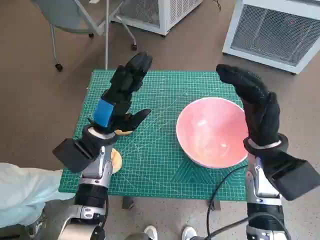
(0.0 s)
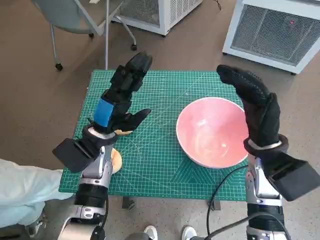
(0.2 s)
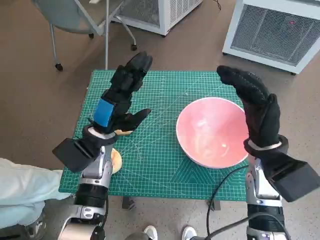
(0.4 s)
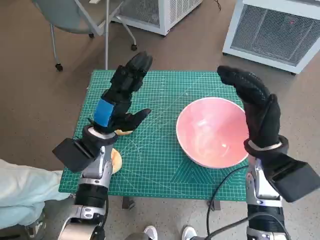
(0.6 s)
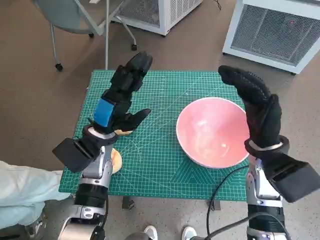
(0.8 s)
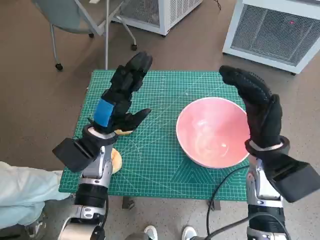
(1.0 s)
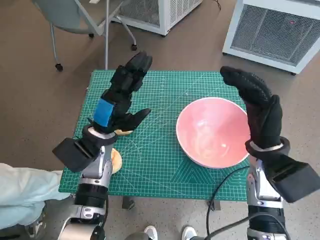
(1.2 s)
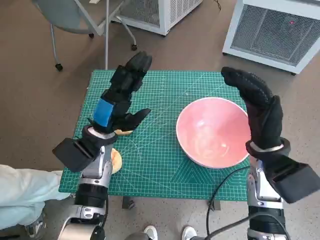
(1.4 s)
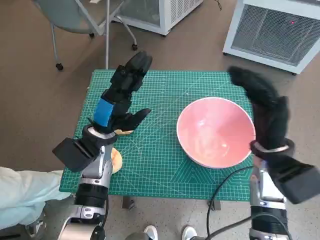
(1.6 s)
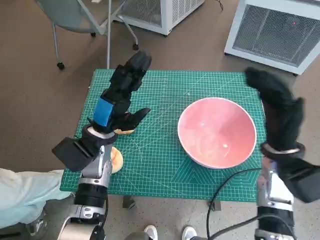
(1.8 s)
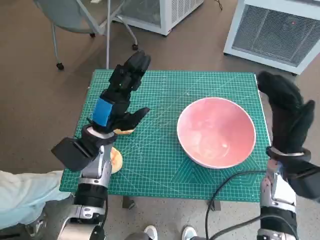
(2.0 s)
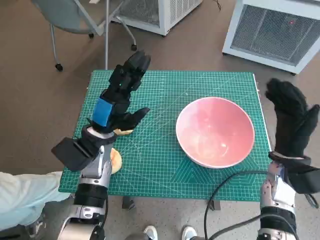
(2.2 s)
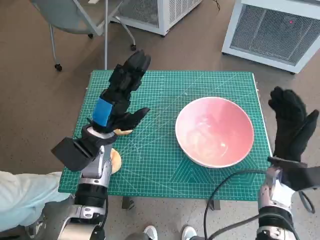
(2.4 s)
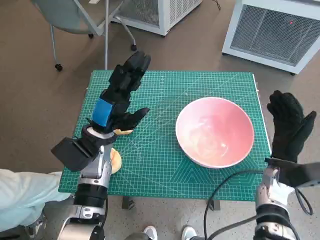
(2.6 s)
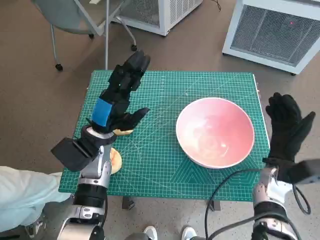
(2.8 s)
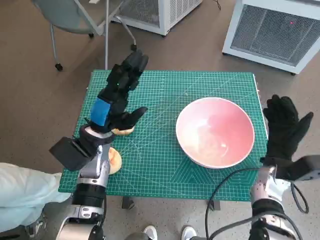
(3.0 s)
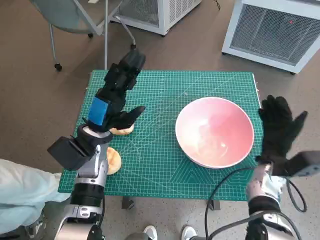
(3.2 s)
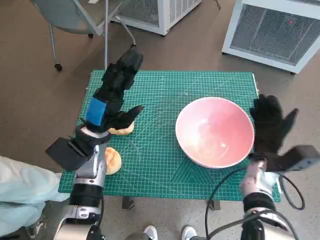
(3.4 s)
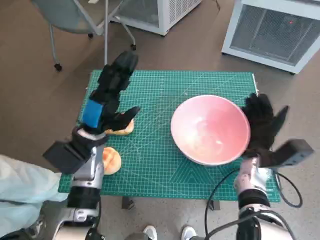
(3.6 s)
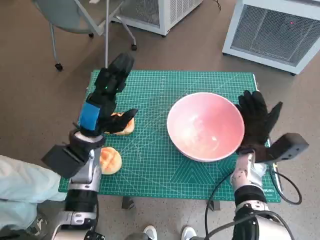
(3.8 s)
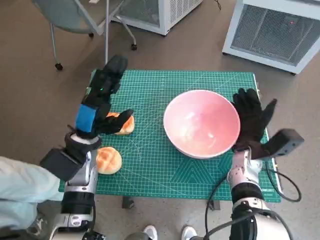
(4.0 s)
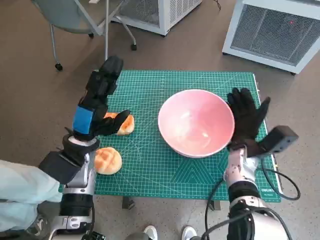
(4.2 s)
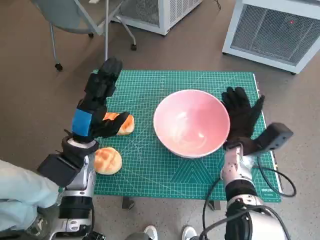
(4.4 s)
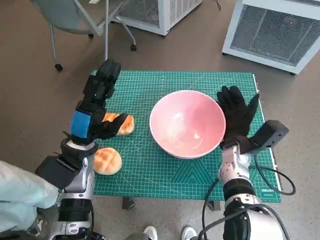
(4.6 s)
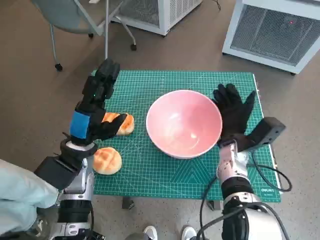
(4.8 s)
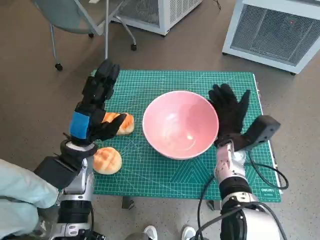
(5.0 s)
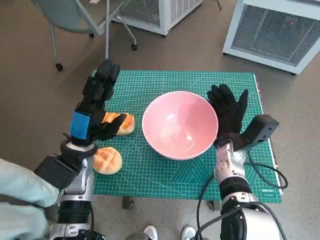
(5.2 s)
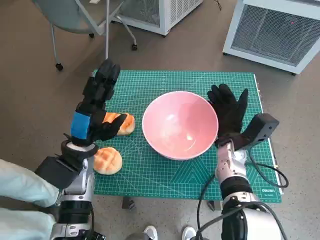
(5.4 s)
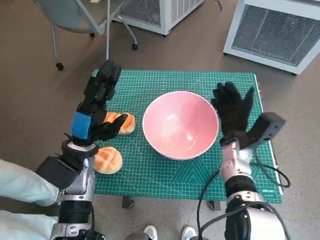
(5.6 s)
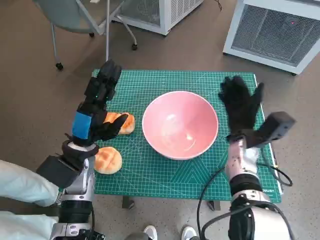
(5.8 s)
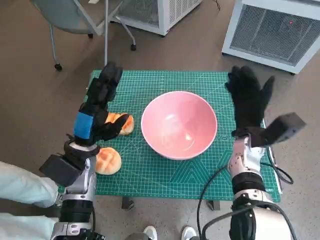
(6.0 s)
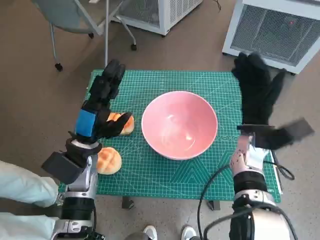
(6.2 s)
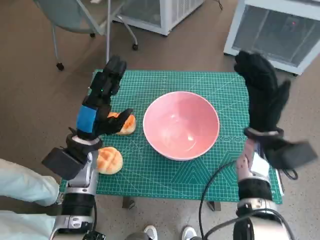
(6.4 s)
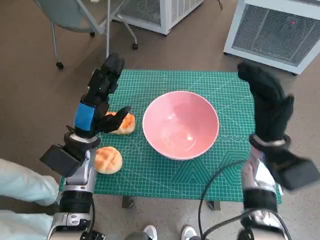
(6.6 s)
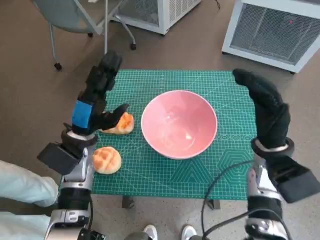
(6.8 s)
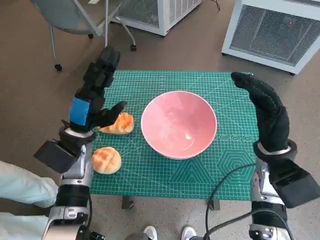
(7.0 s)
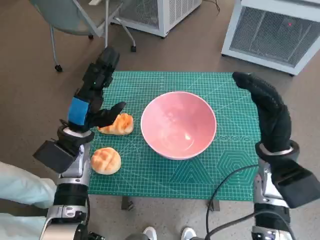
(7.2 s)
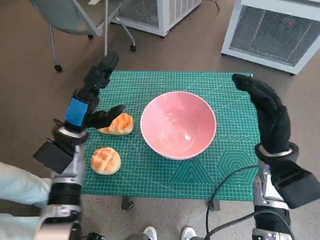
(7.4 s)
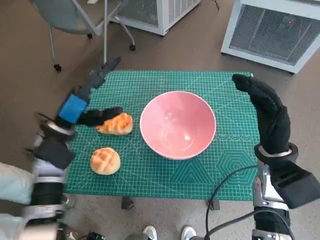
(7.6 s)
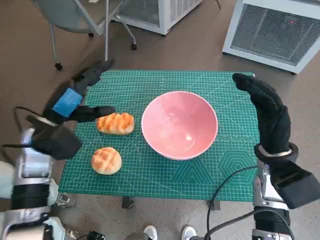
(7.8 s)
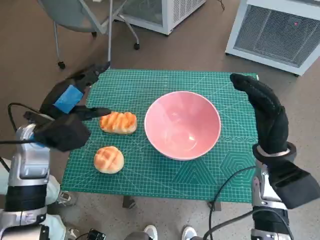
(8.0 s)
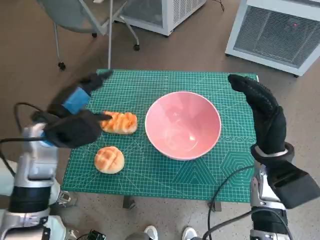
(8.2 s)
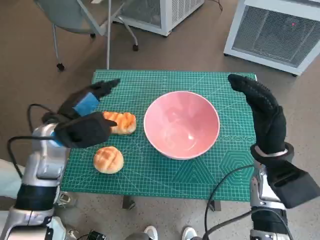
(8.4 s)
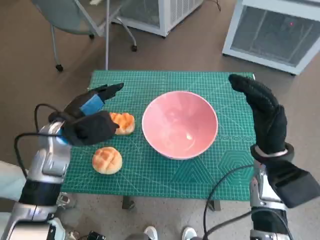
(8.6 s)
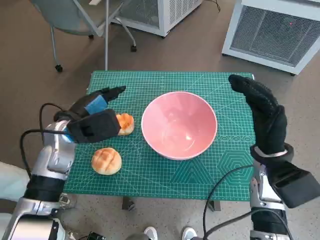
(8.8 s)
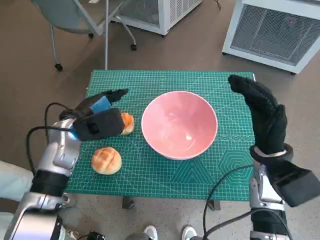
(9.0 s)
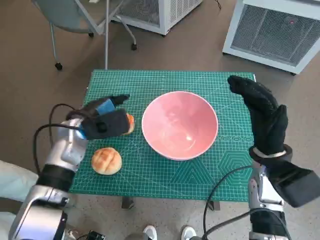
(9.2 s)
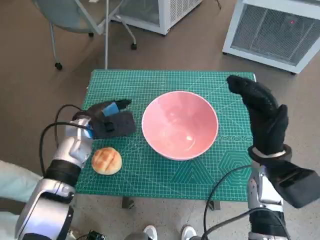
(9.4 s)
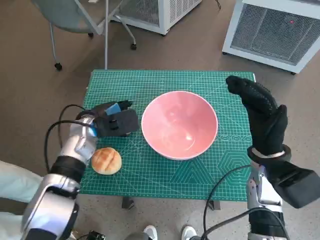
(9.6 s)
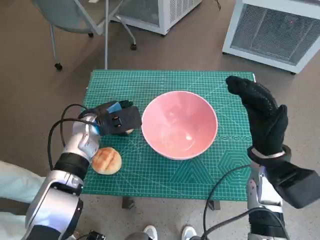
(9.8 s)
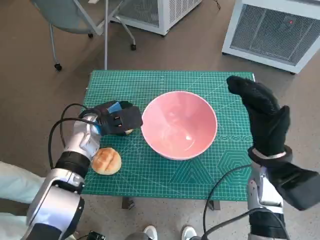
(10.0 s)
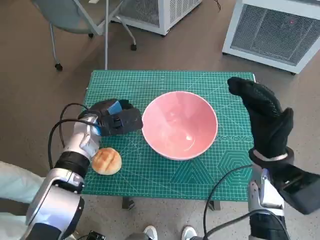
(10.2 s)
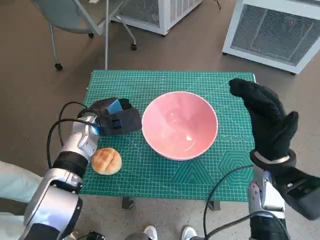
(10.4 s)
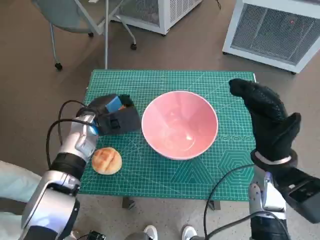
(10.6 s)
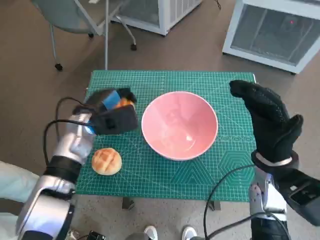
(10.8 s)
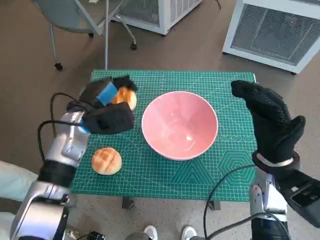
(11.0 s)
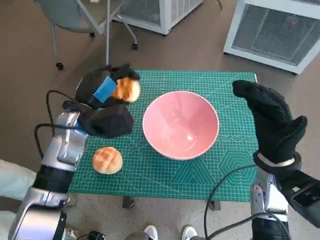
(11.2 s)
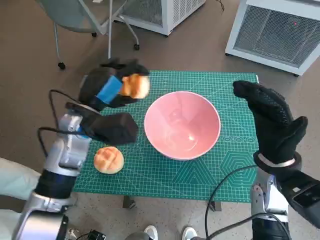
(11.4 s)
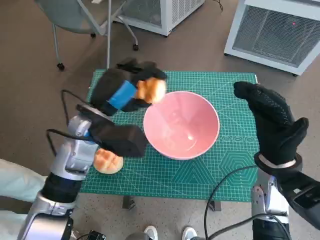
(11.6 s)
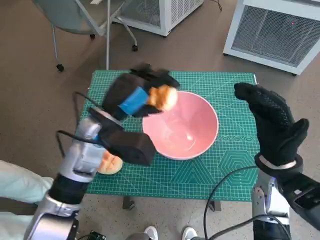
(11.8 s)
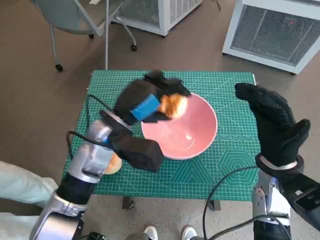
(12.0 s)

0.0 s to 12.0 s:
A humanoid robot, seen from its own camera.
Task of the whole recording: Push the bowl into the center of the table and put the bread into the bowl.
Step, 0.0 to 5.6 s: Move the pink bowl to the center of table with right hand.
Step, 5.8 to 10.2 s: Grasp the long bread with left hand.
1.6 to 3.0 s: The right hand moves downward and to the right, some 10 cm.
3.0 to 4.4 s: The right hand shifts roughly 10 cm to the left.
6.0 to 7.6 s: The left hand changes place by some 5 cm. The right hand moves backward, approximately 5 cm.
9.0 to 10.4 s: The left hand ends up roughly 5 cm from where it was.
10.4 to 12.0 s: The left hand is displaced to the right and upward by approximately 10 cm.

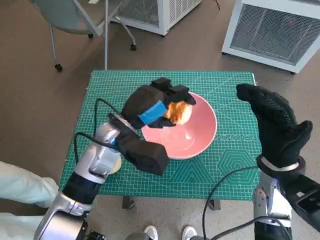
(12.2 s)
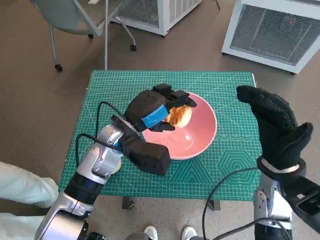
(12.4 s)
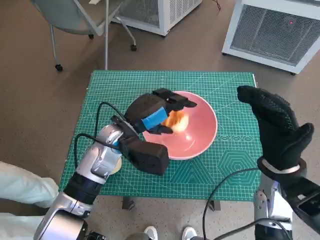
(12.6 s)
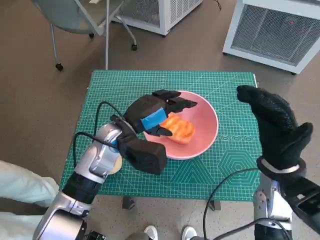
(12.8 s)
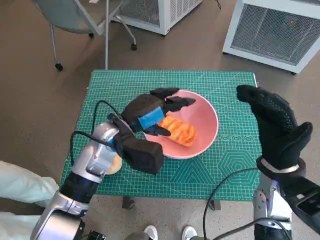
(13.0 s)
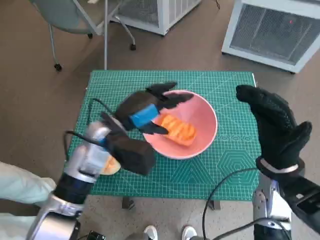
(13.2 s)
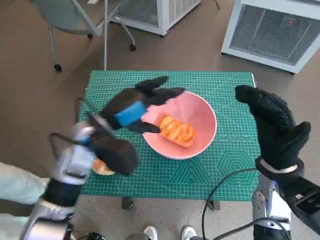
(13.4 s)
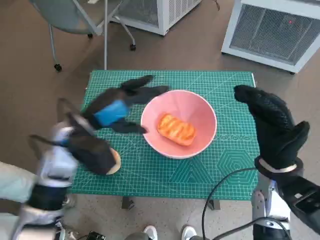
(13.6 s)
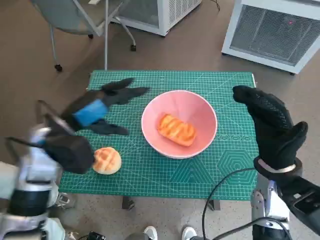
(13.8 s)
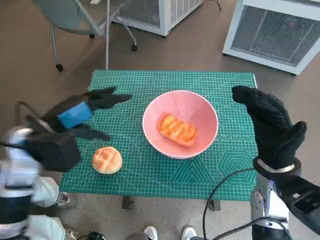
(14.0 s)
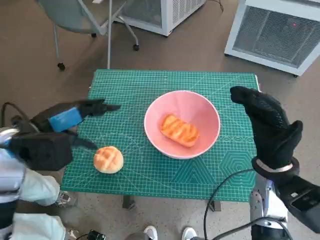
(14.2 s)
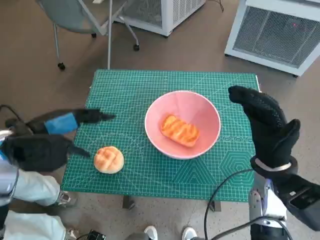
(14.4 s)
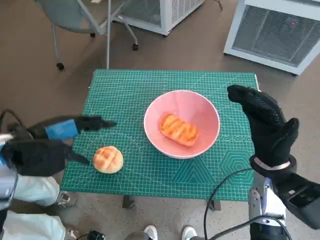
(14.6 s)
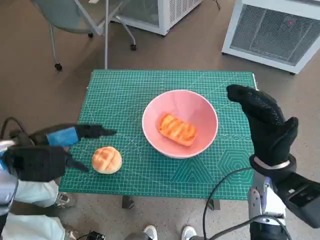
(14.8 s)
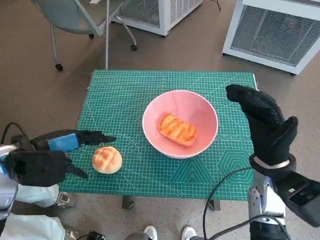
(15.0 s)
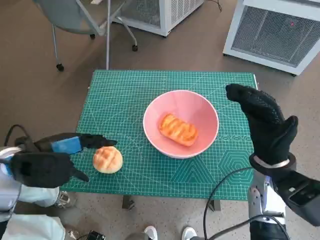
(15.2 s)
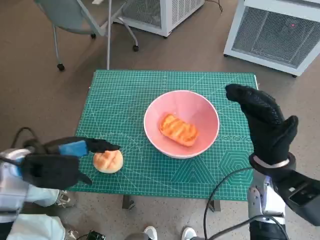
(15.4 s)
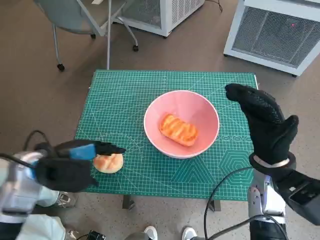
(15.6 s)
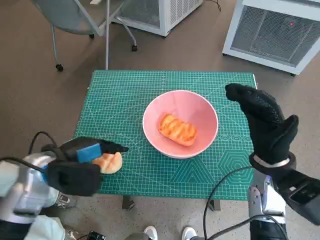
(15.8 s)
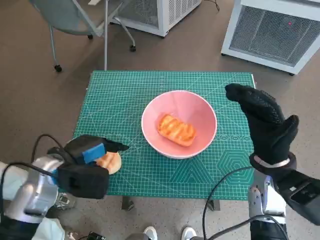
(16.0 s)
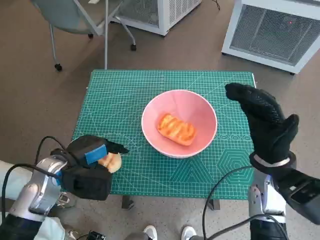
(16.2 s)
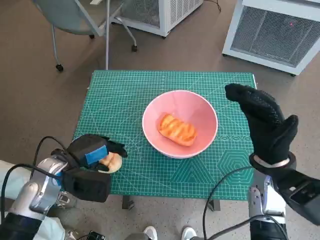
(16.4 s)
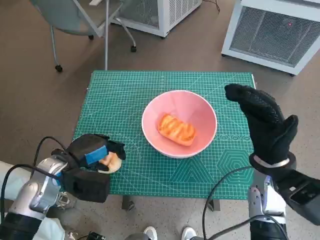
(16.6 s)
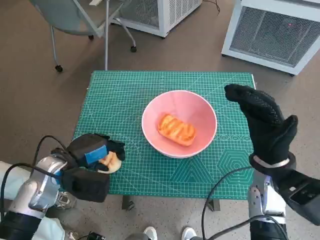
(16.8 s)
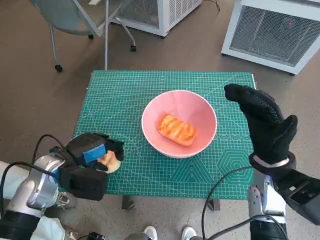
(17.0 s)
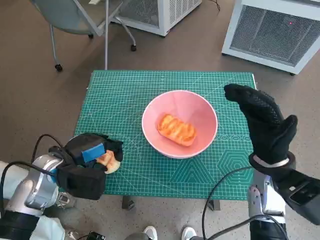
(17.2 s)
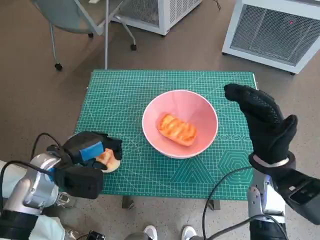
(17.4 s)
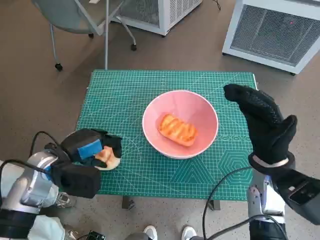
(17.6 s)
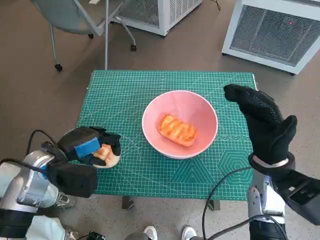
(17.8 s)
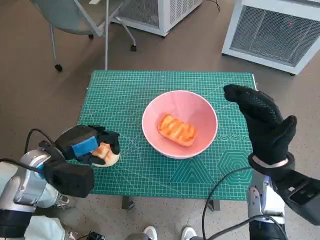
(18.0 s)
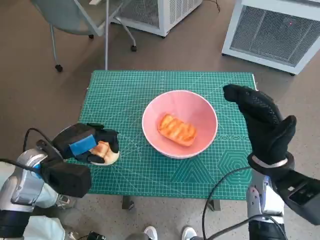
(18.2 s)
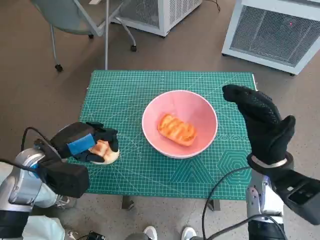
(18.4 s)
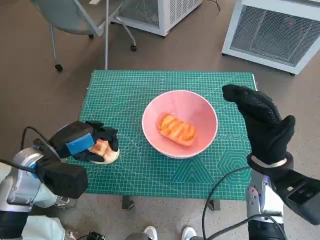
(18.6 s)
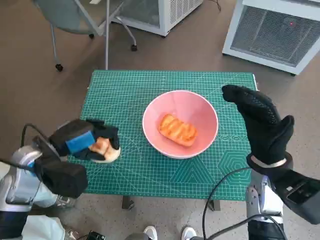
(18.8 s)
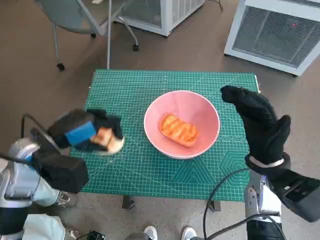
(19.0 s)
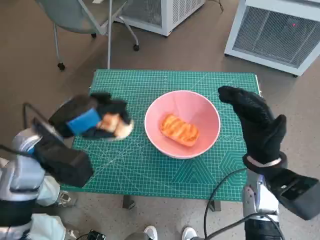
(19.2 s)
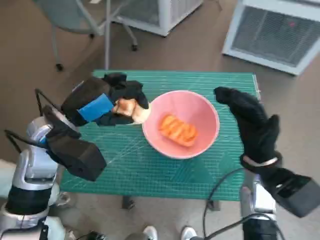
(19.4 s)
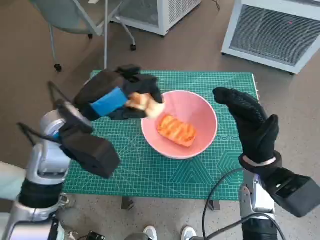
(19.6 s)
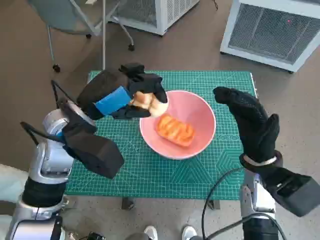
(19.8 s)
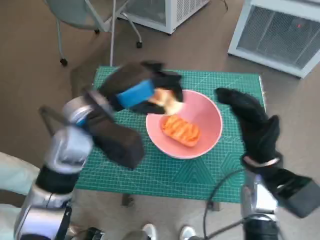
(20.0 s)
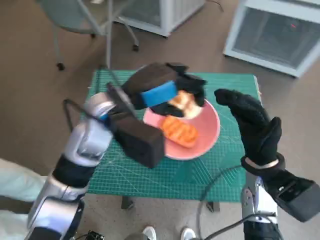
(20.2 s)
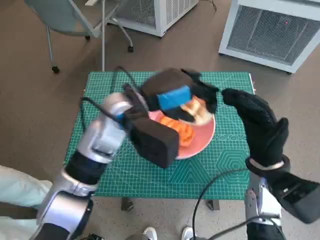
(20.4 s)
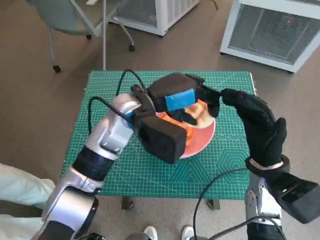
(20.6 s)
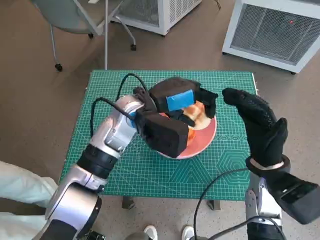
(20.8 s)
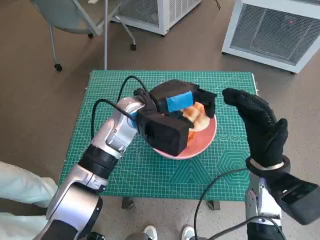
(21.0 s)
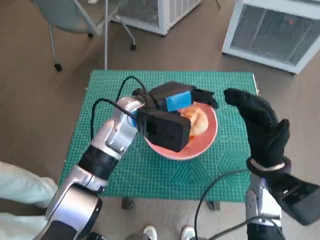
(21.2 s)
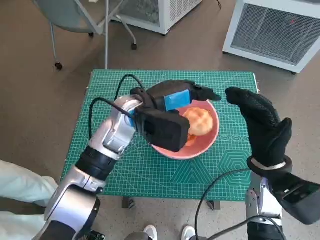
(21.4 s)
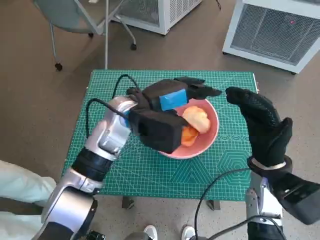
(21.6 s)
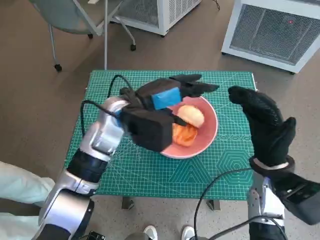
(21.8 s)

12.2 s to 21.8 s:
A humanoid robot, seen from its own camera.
Task of the whole recording: Push the bowl into the center of the table and put the bread into the bowl.
Step, 13.0 to 17.2 s: Grasp the round bread with left hand.
Step, 17.4 to 21.2 s: Place the round bread in pink bowl with left hand.
12.2 to 13.8 s: The left hand travels to the left by about 10 cm.
13.8 to 15.4 s: The left hand shifts about 5 cm to the left.
15.4 to 17.0 s: The left hand goes some 5 cm downward.
17.0 to 18.6 s: There are only small adjustments of the hands.
18.6 to 20.2 s: The left hand is displaced to the right and upward by approximately 20 cm.

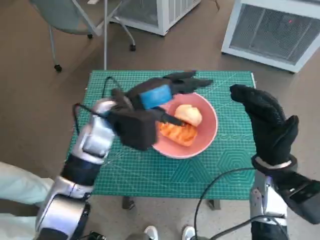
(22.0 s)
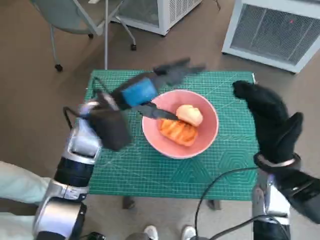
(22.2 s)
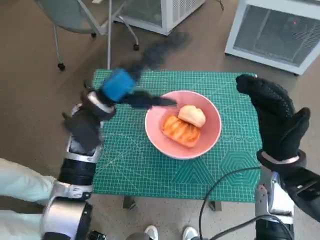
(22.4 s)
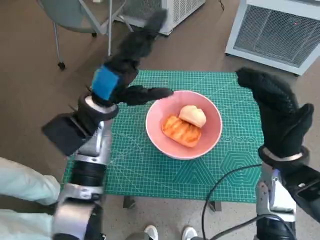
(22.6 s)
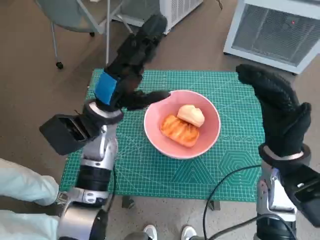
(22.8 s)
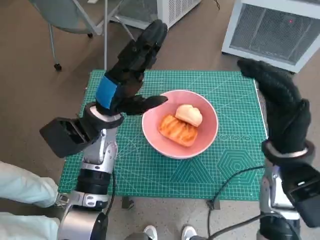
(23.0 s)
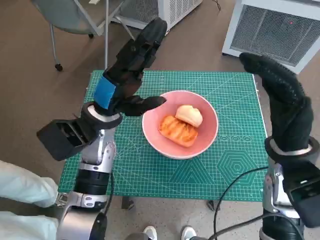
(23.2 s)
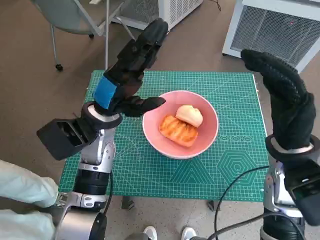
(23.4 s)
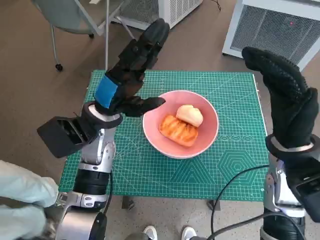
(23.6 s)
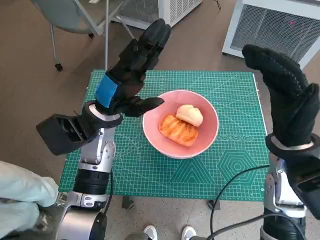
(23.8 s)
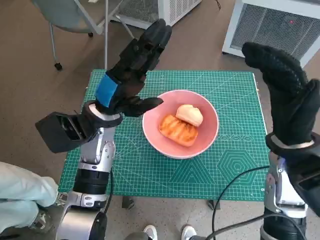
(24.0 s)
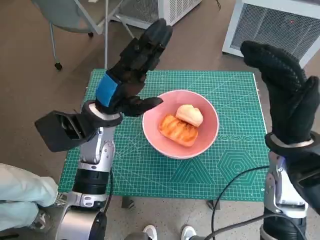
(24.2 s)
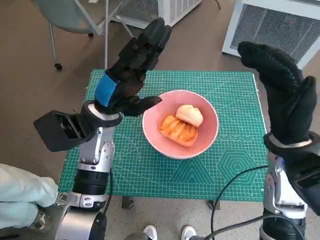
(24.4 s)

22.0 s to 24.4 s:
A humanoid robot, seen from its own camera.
Task of the whole recording: Push the bowl into the center of the table and put the bread into the bowl.
22.0 to 23.2 s: The right hand is displaced upward by some 5 cm.
23.2 to 24.4 s: The hands stay close to where they were, moving slightly.
